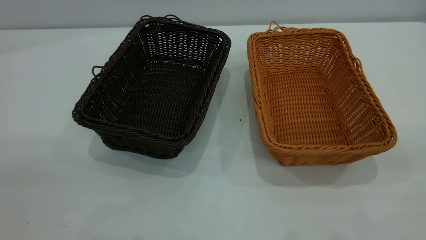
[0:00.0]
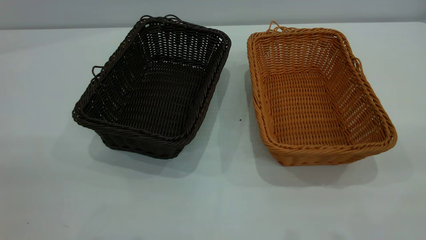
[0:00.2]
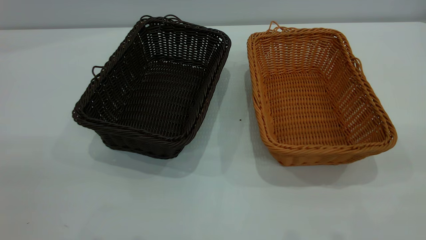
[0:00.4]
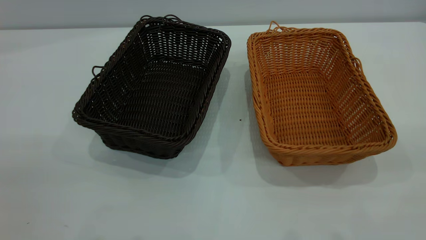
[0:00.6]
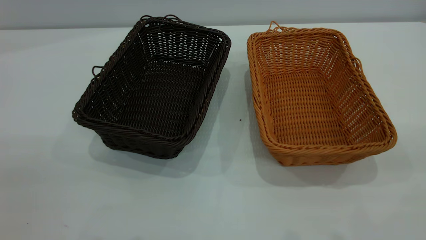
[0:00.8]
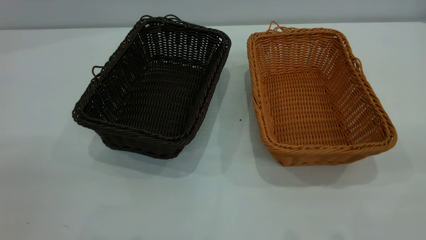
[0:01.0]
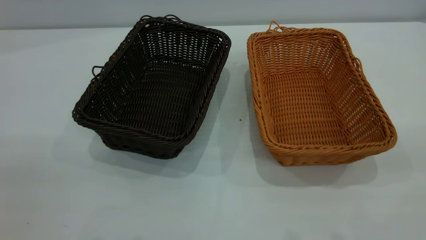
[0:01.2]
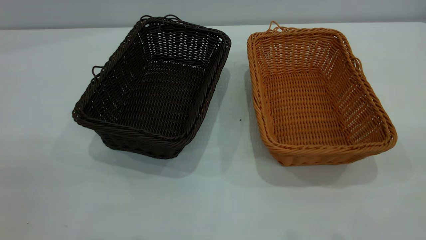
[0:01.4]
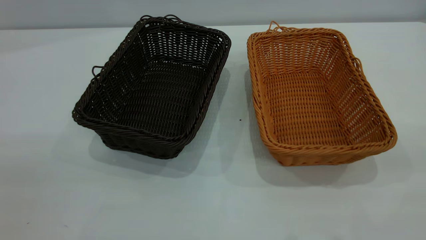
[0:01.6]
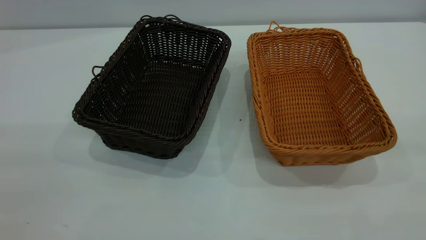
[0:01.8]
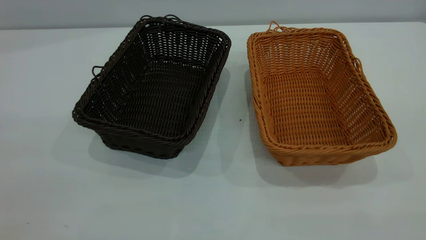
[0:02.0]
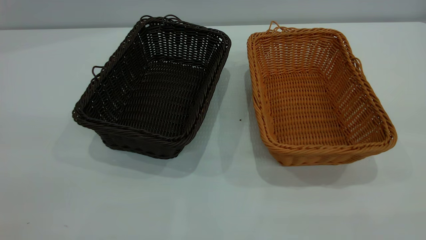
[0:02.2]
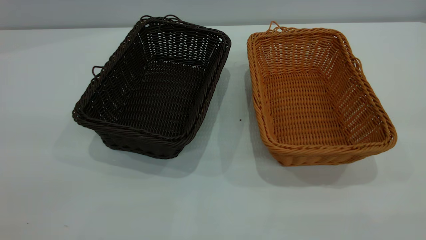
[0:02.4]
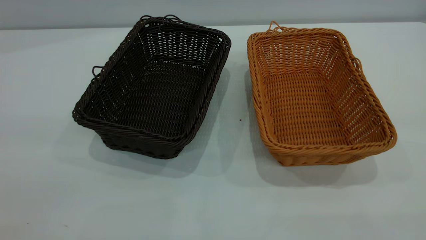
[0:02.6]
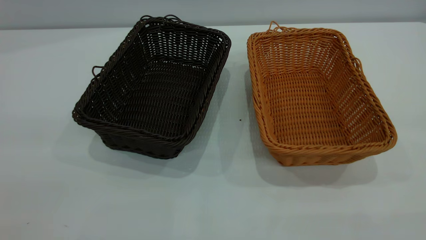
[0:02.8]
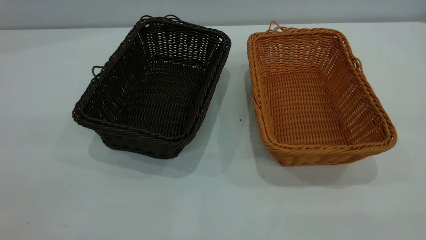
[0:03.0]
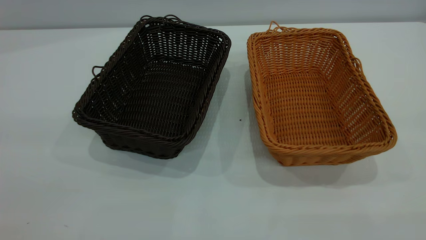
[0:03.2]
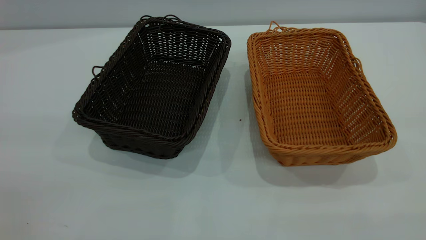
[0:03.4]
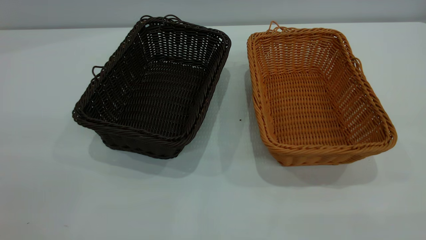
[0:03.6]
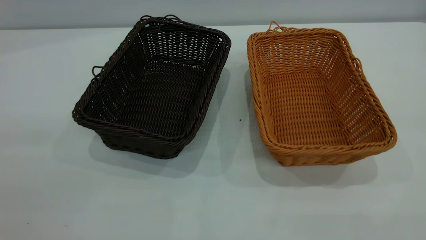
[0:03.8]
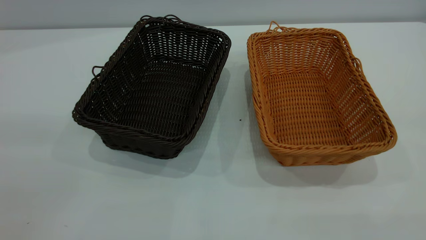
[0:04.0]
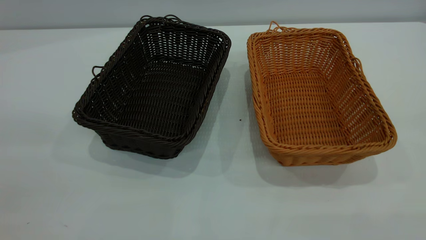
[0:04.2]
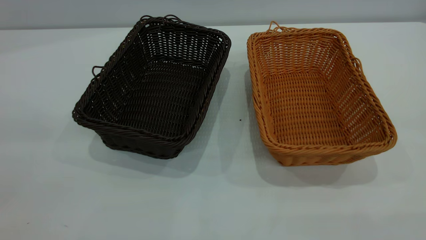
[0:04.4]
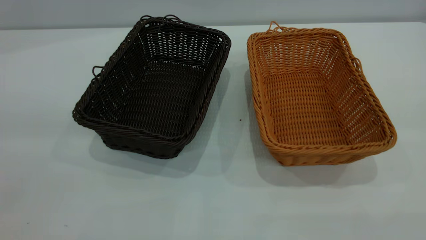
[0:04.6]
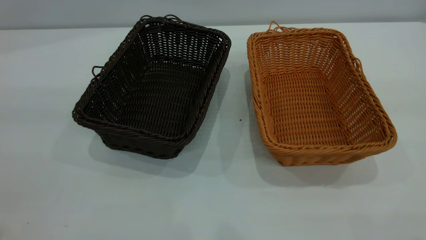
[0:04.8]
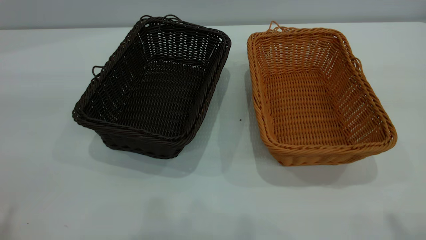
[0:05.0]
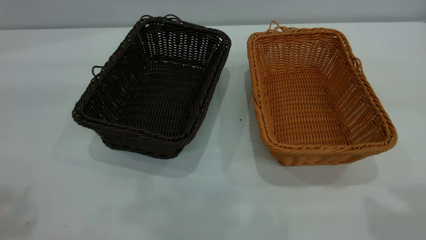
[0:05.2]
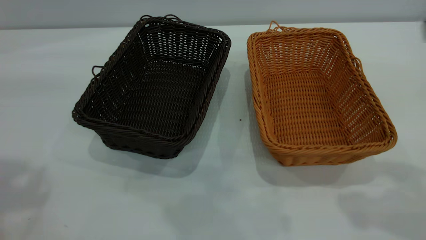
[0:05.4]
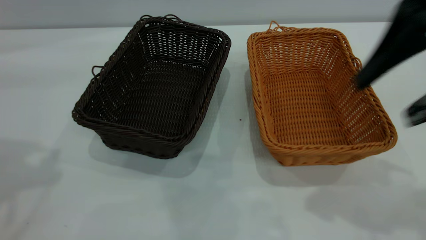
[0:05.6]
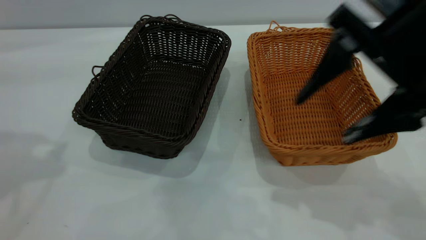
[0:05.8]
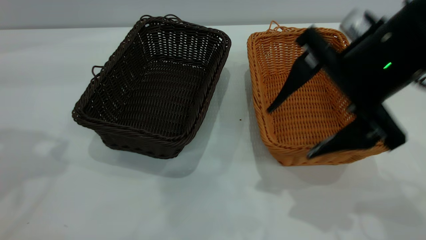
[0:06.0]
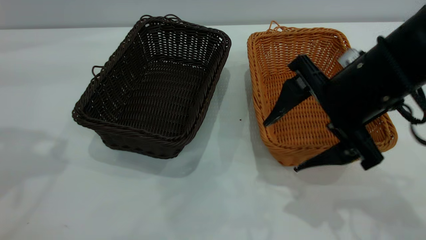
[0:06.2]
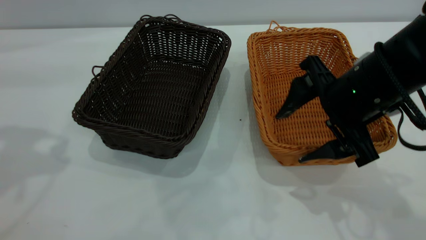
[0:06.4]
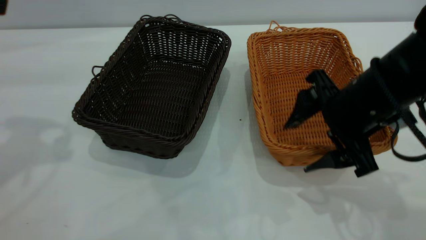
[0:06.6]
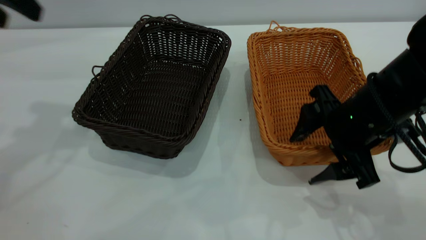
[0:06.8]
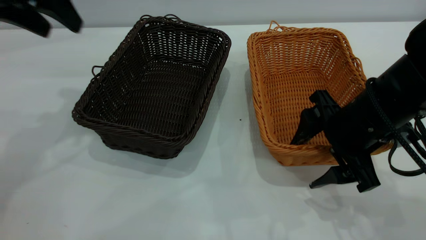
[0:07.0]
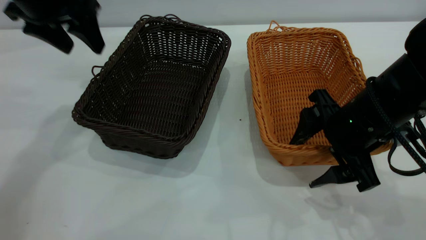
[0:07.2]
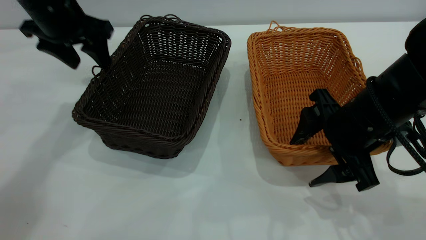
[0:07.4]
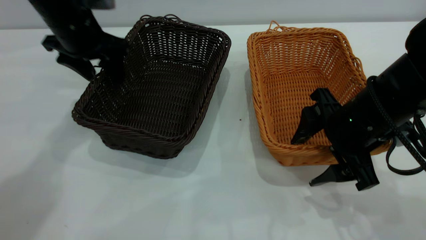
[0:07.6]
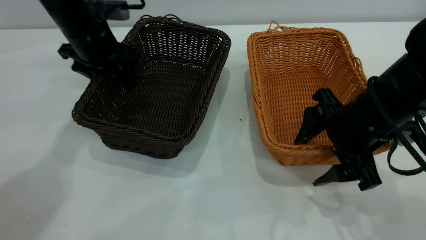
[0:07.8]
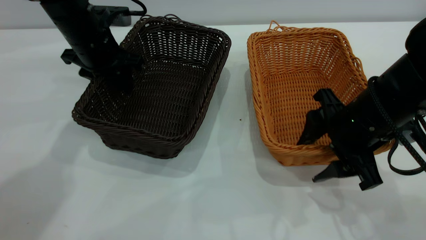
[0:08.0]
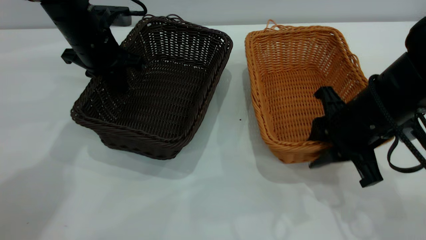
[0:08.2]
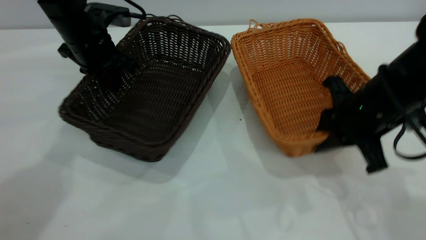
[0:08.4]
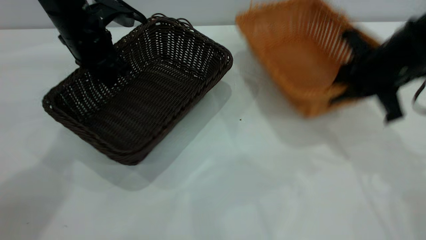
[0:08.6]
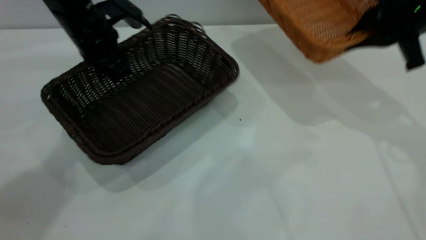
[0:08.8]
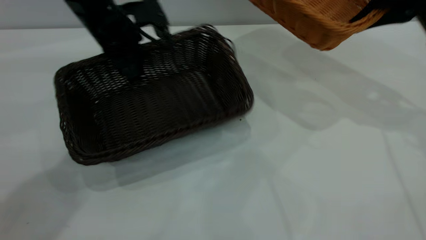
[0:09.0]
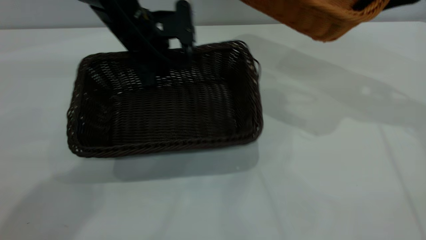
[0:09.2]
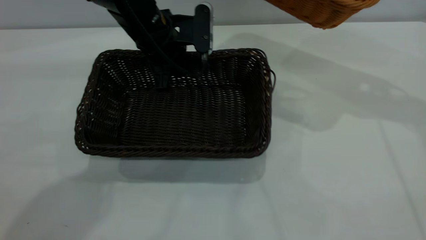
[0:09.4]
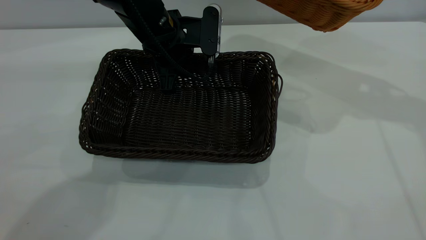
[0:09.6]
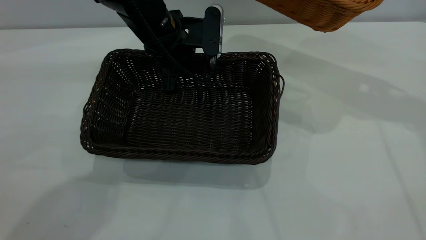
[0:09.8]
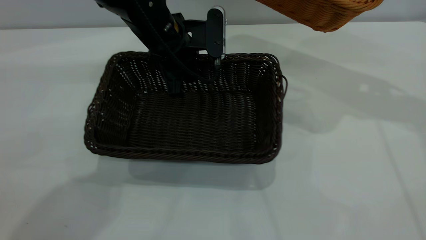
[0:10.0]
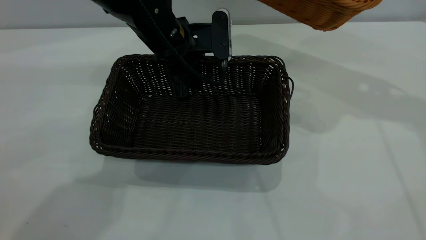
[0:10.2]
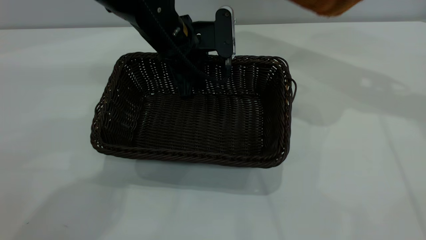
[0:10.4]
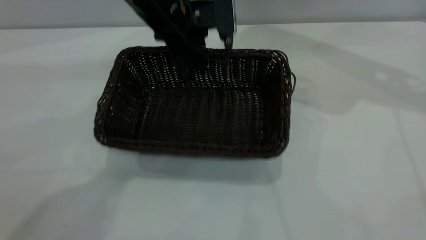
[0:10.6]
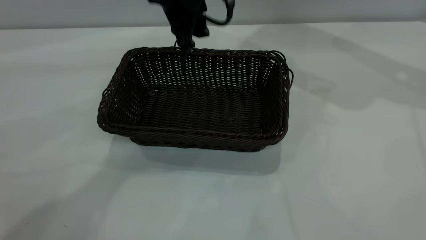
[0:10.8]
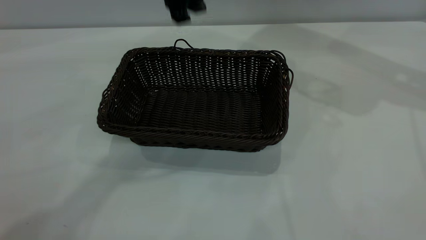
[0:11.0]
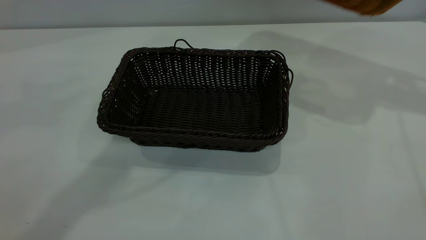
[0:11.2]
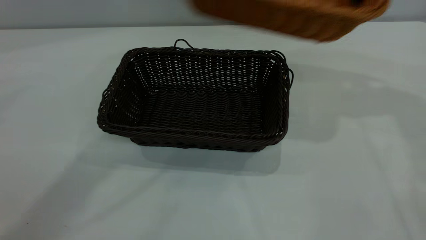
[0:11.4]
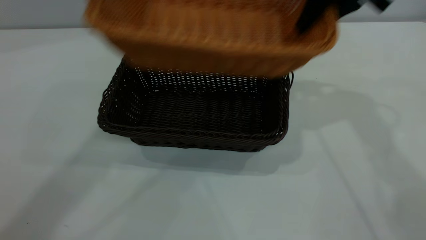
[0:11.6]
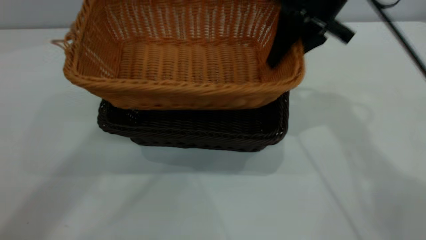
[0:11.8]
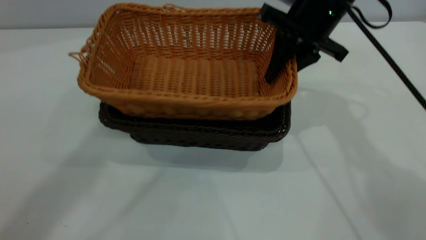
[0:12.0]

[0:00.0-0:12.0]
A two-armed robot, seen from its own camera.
Task of the whole recording: the left gripper grasp the black basket and place it in the center of the table, the right gripper grasp the brown basket and place it inside the black one.
Step, 0:00.0 to 0:08.6: Pick up the light basket with the right gripper.
Step, 0:08.8 to 0:10.8: Move the dark basket to the center of view.
0:04.4 to 0:06.0: The right gripper heads forward, downward and to the left, covering some 40 cm.
0:06.0 to 0:07.6: The right gripper moves downward, roughly 10 cm, while the left gripper is displaced downward, forward and to the right by some 25 cm.
0:07.6 to 0:09.0: The right gripper heads upward, forward and to the right, covering roughly 20 cm, and closes up. Meanwhile the left gripper heads to the right, covering roughly 5 cm, and closes its fingers.
0:09.0 to 0:10.4: The right gripper is displaced upward by about 5 cm, while the left gripper moves to the right, some 10 cm, and opens up.
0:10.4 to 0:12.0: The left gripper shifts approximately 35 cm upward. The right gripper goes roughly 20 cm to the left and downward.

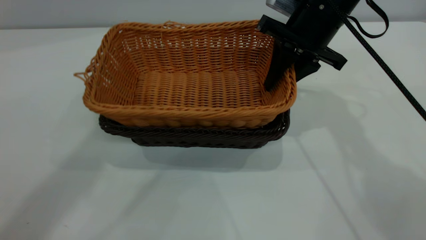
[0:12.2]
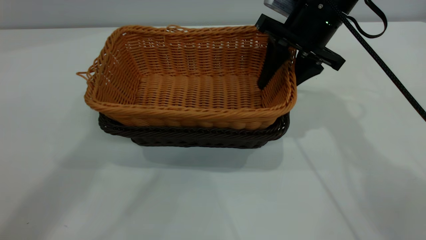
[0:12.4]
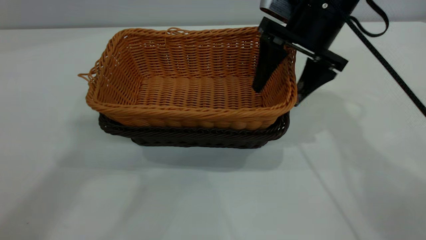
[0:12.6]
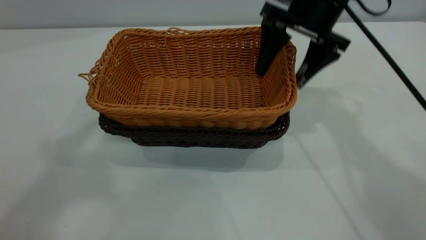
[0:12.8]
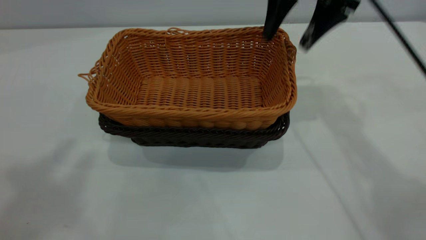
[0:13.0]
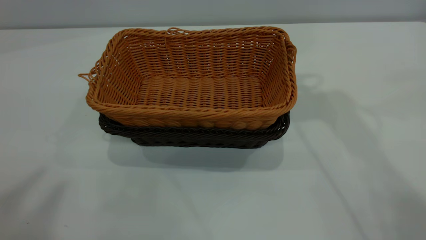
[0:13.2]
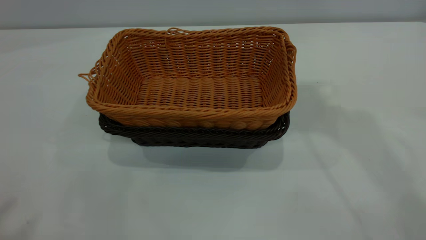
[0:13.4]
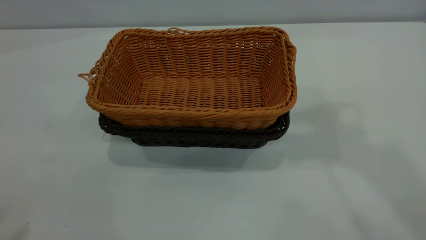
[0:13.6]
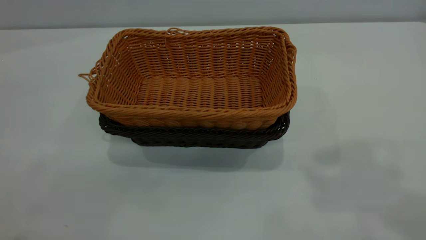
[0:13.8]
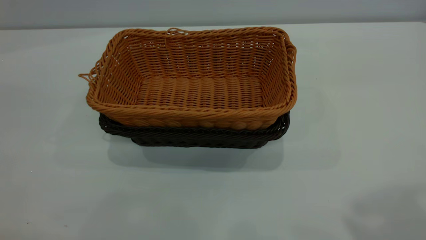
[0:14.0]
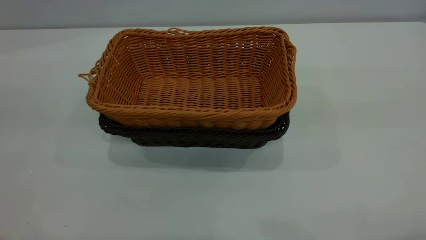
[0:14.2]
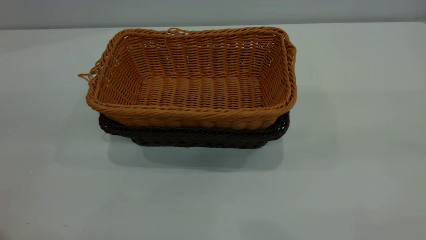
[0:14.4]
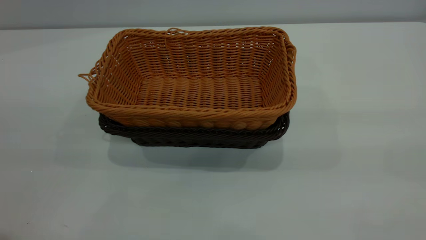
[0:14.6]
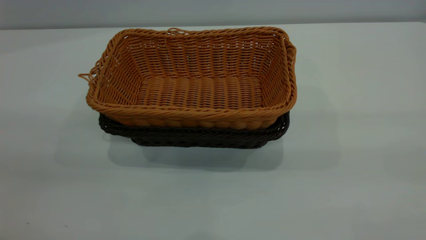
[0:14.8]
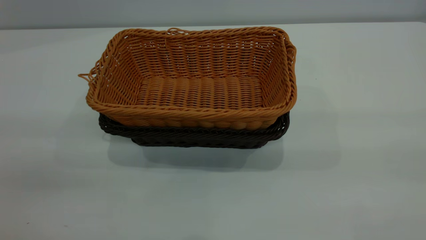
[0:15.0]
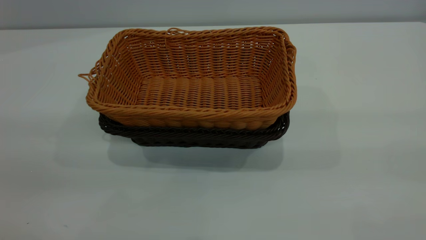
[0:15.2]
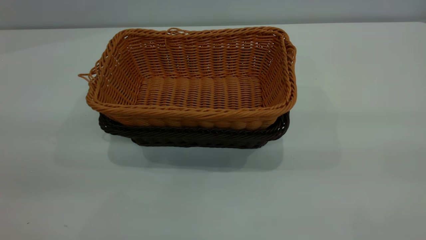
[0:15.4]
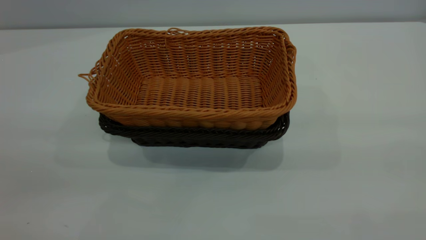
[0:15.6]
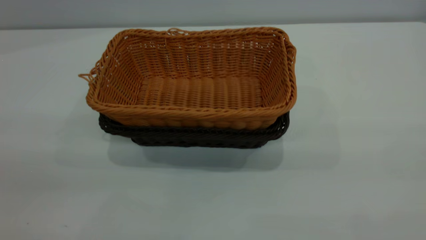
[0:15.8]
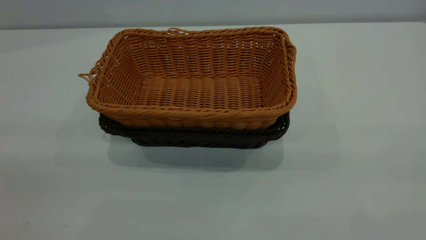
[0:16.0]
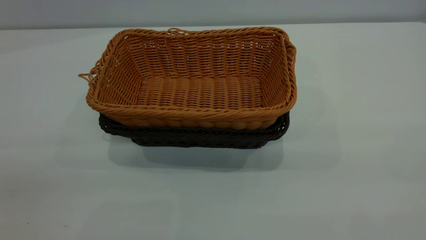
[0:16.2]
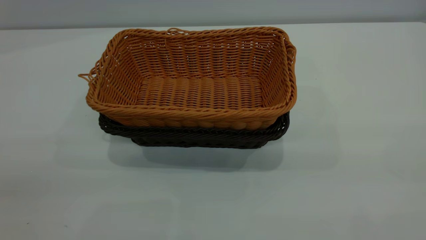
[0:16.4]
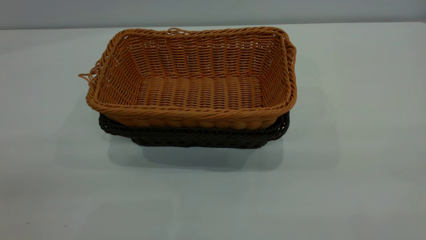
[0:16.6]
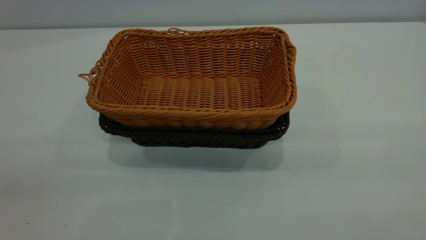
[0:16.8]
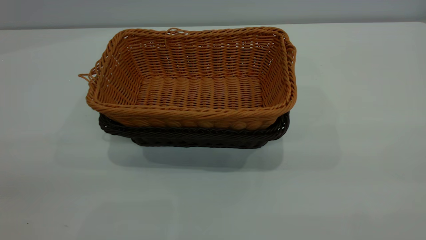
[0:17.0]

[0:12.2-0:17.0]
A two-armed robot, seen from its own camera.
Task of the whole recording: the left gripper grasp the black basket and place it in the center of the table, the right gripper grasp the brown basket and place it inside the black one.
0:12.2 to 0:13.8: The right gripper moves upward and backward, approximately 40 cm, and opens up. The left gripper moves backward and to the left, approximately 25 cm.
